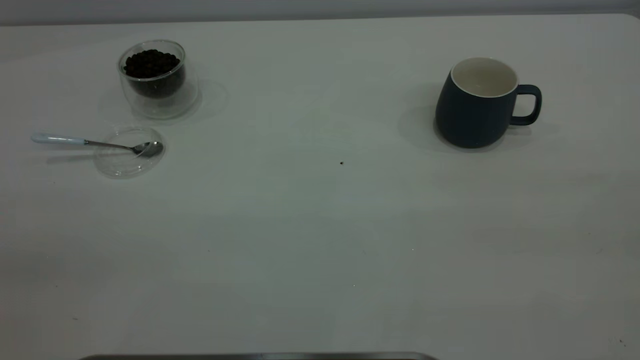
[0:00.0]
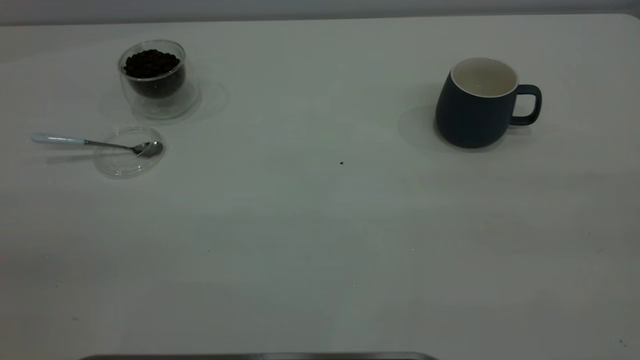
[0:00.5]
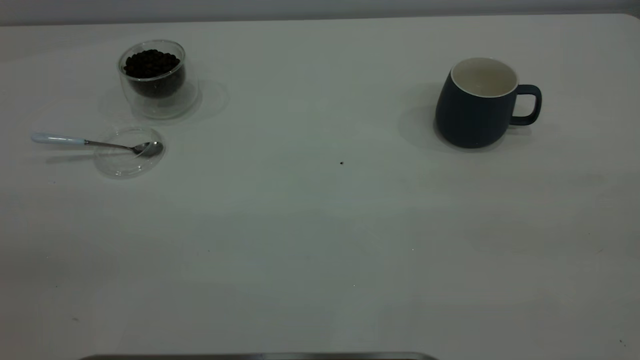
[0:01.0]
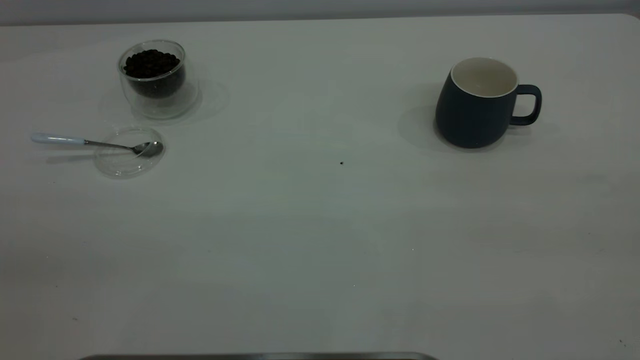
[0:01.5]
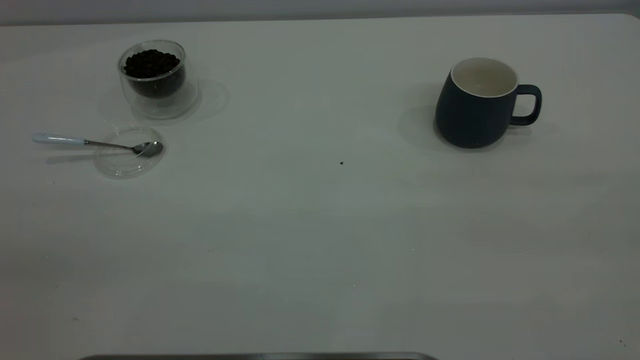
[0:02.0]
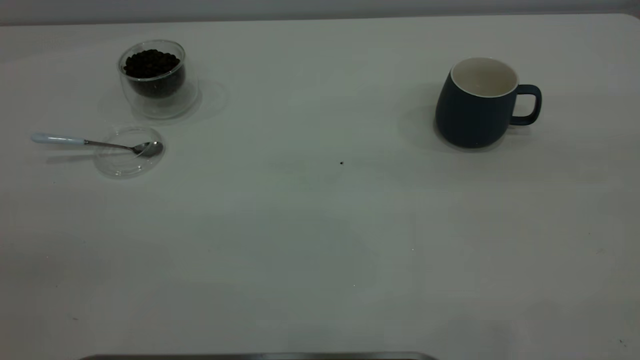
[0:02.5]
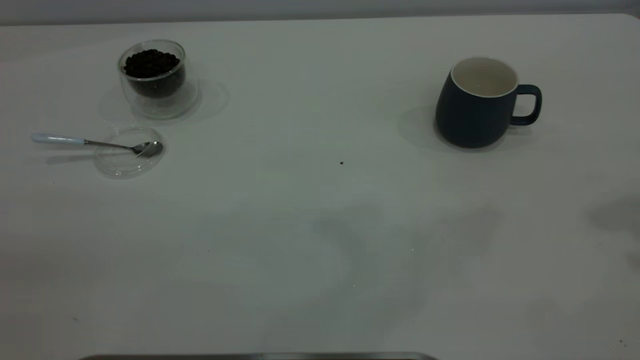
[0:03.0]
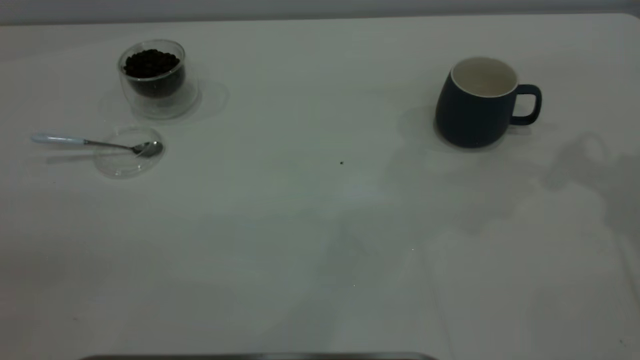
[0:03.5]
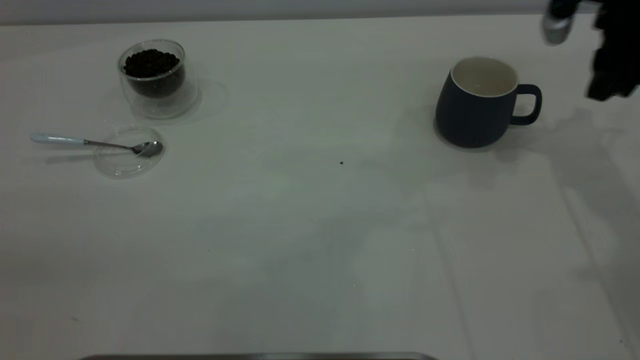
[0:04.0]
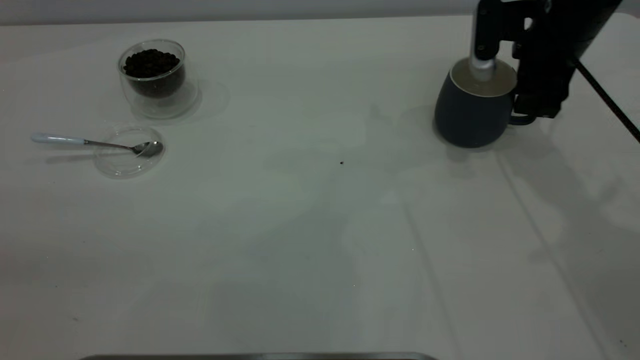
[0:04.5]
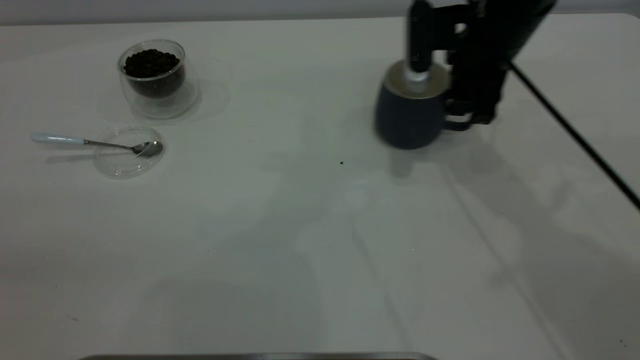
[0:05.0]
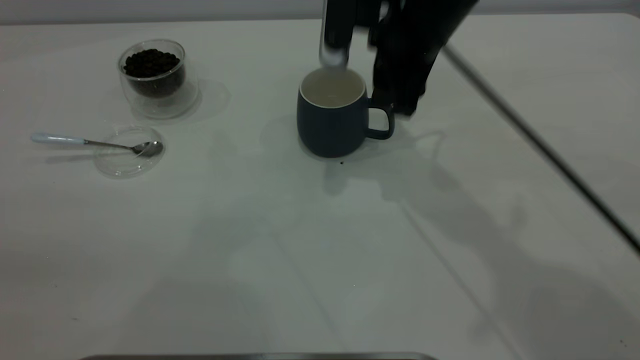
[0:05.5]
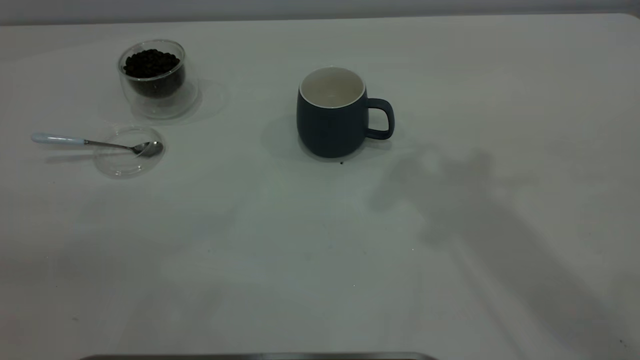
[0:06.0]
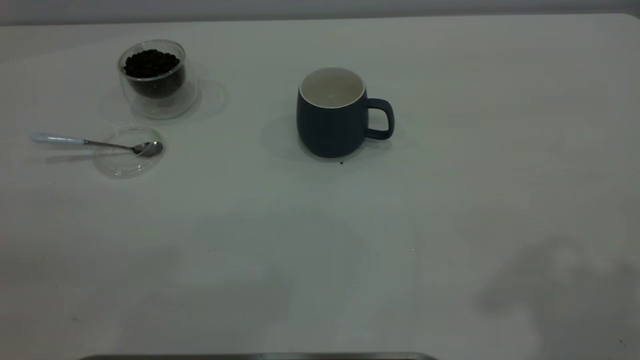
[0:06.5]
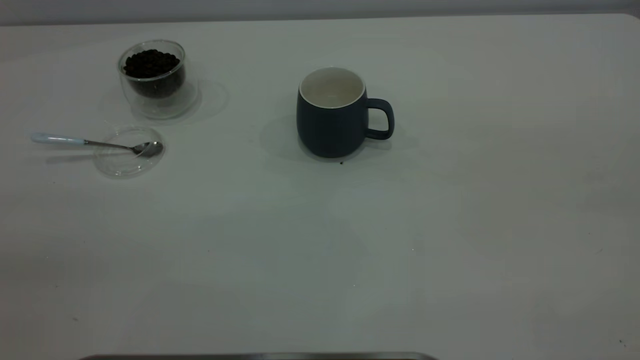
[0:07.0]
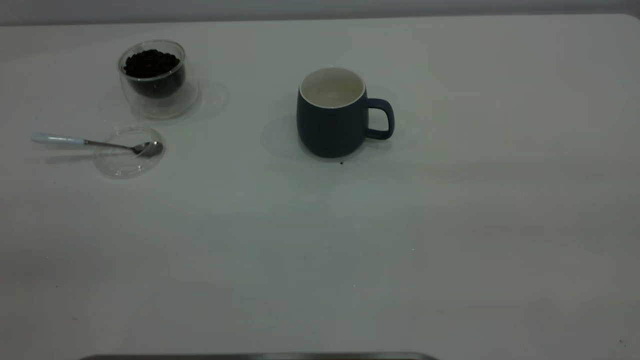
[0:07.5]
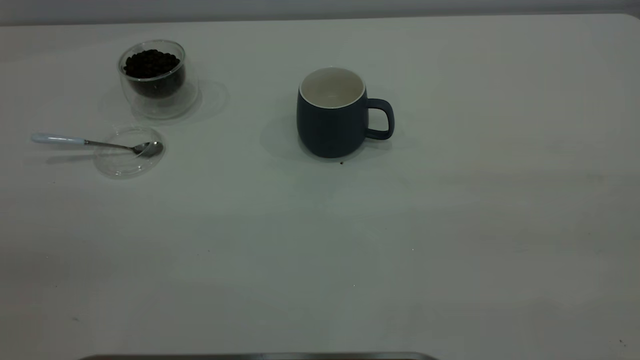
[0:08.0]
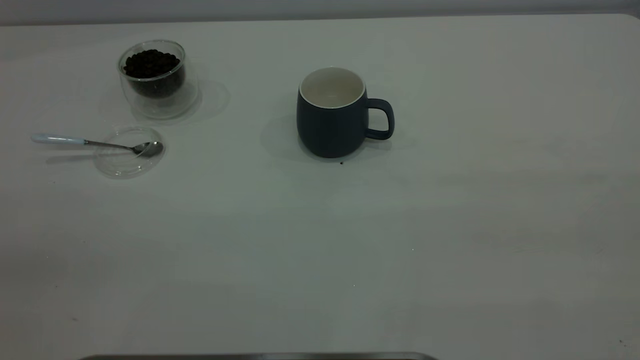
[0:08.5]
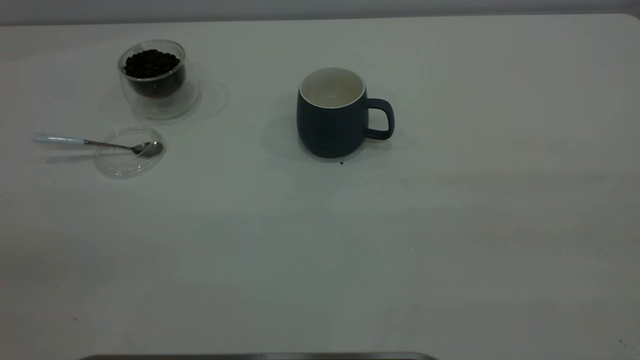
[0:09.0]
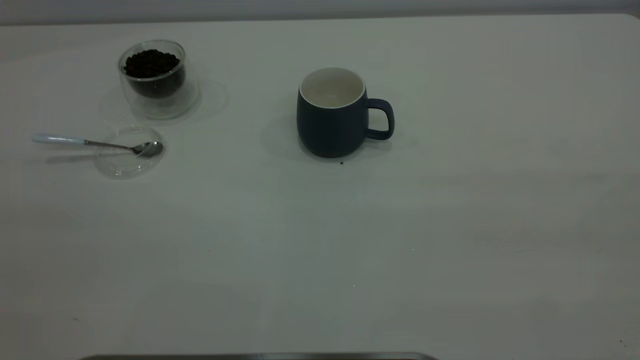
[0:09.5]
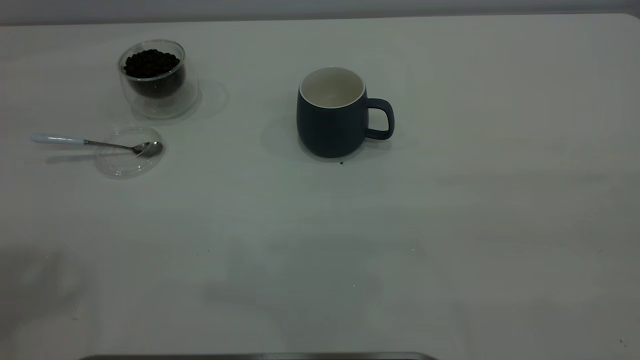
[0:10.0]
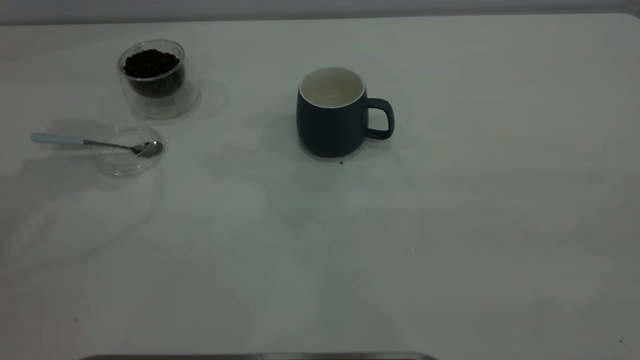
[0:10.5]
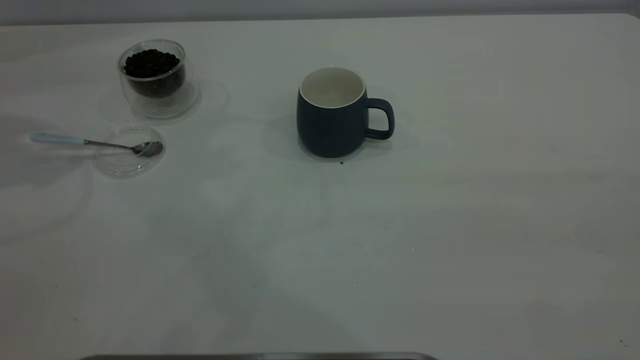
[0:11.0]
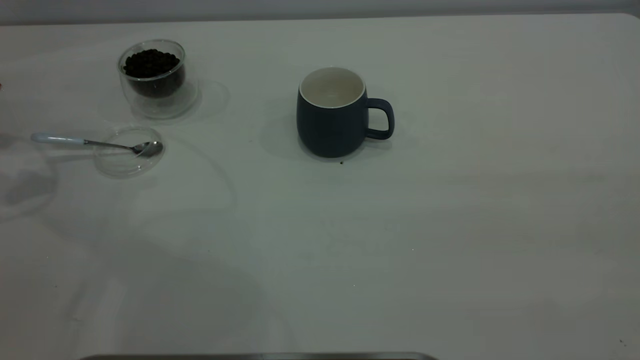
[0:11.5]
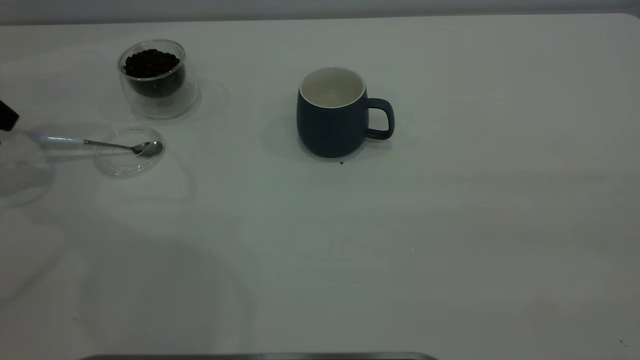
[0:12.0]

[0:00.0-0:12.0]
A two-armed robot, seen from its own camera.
Task of the whole recording: the right gripper place the grey cup in the center of the table, the left gripper take the blue spoon from the cup lid and scoop out the coffee beans from the coffee cup and put them into the grey cup, the left gripper put the spoon back into the cup lid.
Step, 0:00.0 to 0:05.5: Move the cup to the center of view.
0:00.0 to 0:02.0: Neither gripper changes place.
0:02.0 to 0:04.0: The right gripper shifts about 50 cm forward and downward.
0:04.0 to 0:06.0: The right gripper shifts some 30 cm upward, to the left and backward.
0:10.0 to 0:12.0: The left gripper shifts about 35 cm downward, forward and to the left.

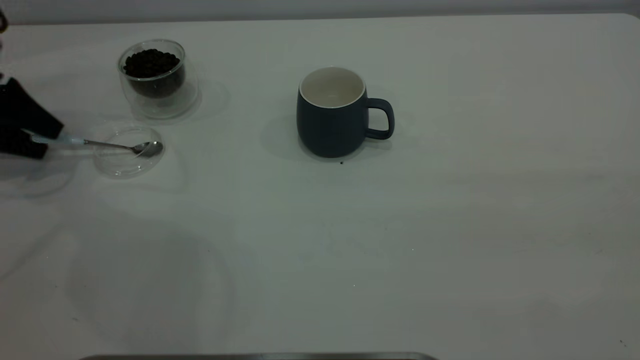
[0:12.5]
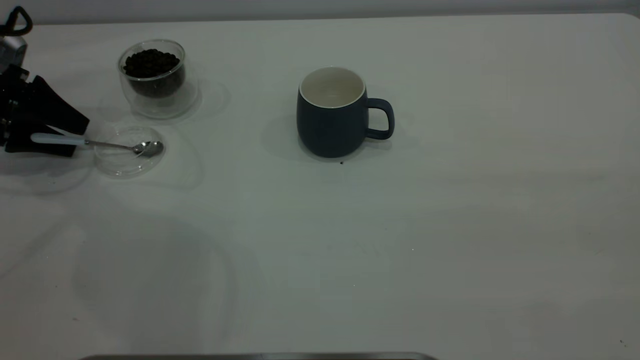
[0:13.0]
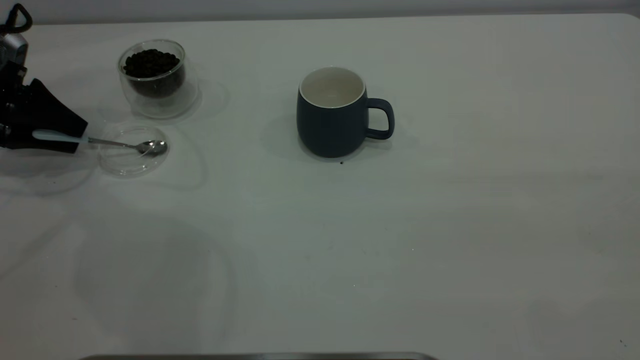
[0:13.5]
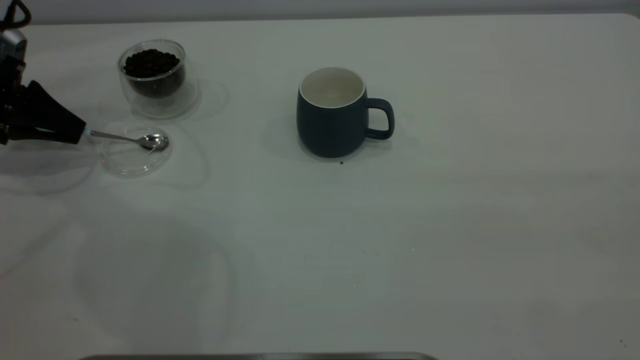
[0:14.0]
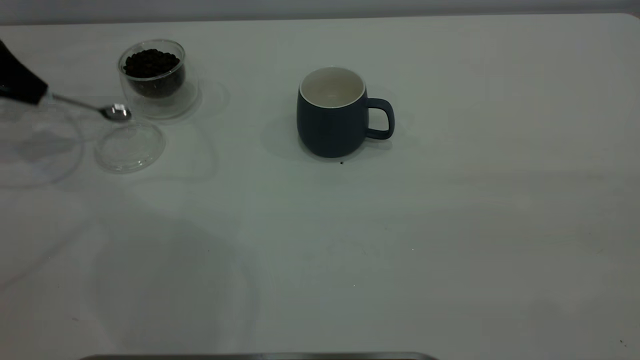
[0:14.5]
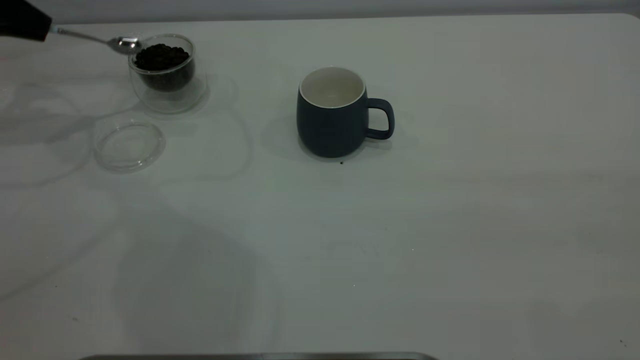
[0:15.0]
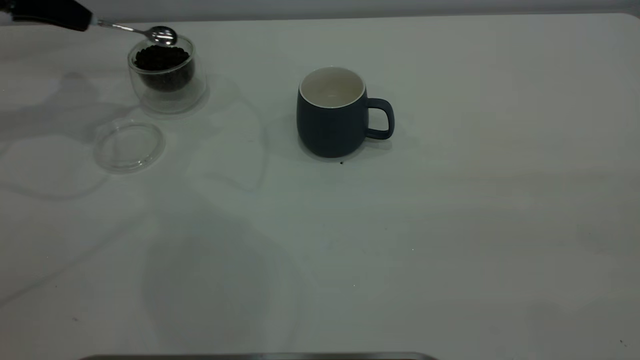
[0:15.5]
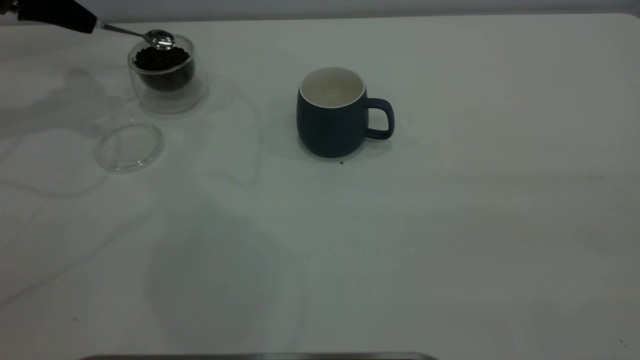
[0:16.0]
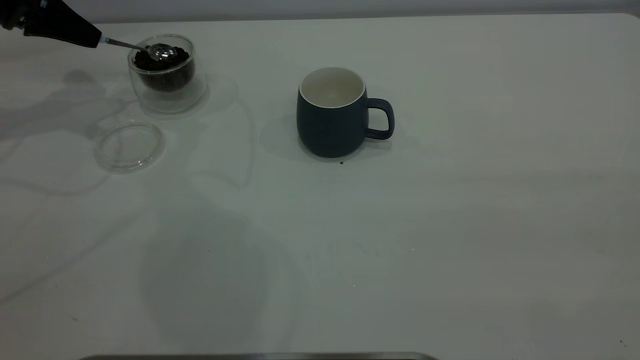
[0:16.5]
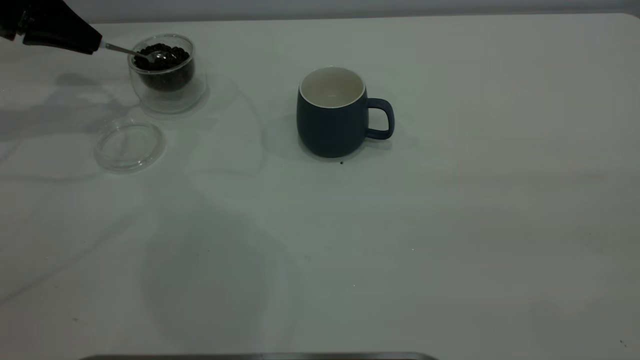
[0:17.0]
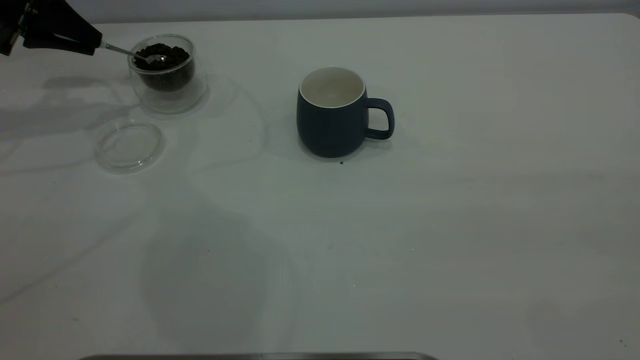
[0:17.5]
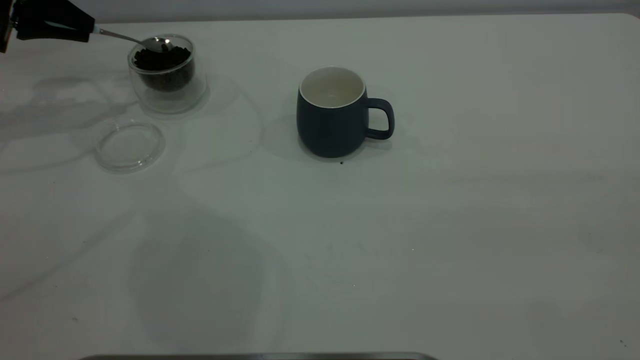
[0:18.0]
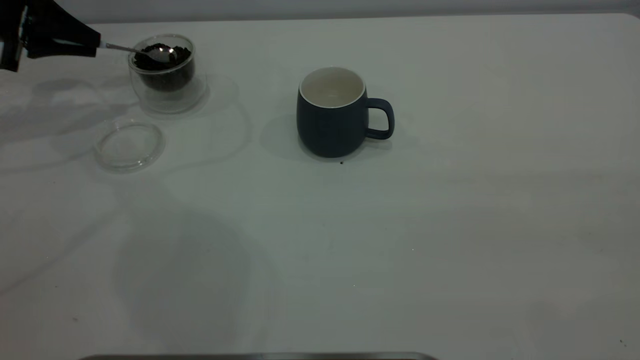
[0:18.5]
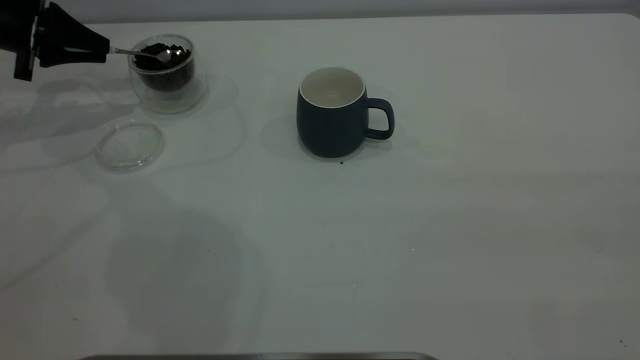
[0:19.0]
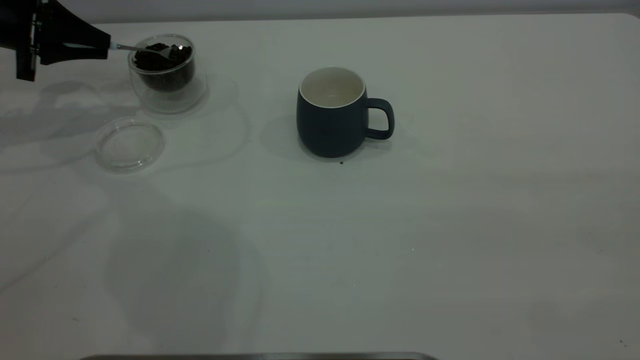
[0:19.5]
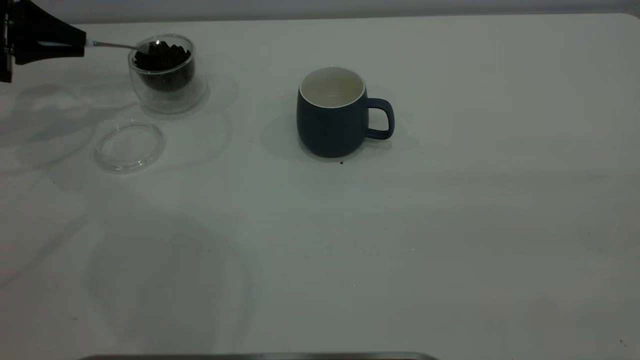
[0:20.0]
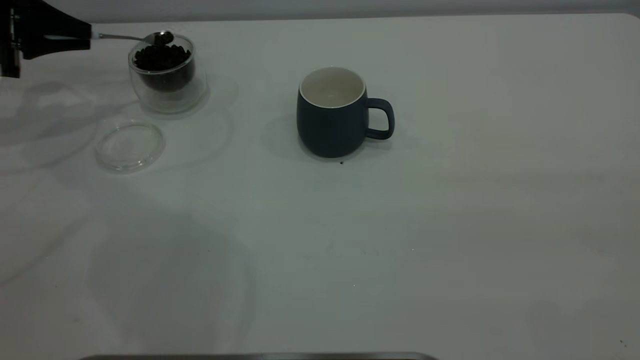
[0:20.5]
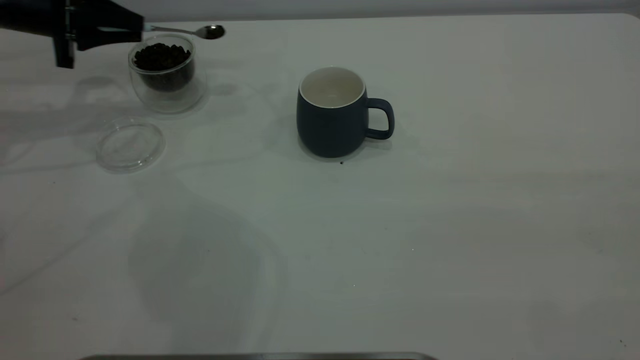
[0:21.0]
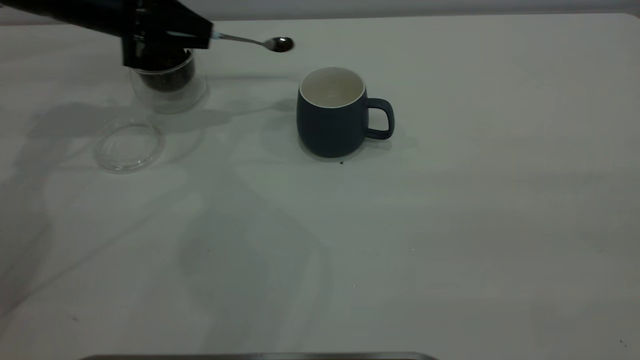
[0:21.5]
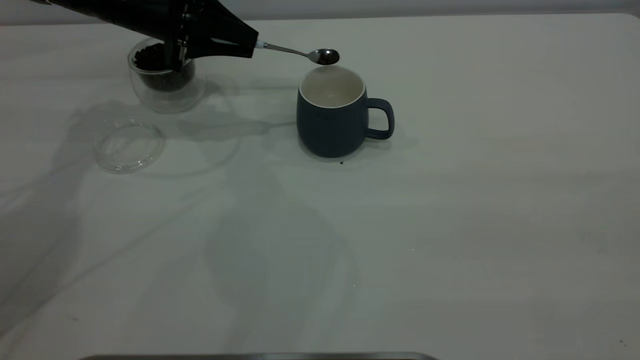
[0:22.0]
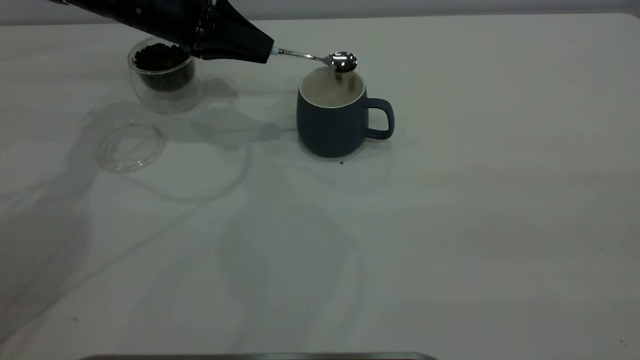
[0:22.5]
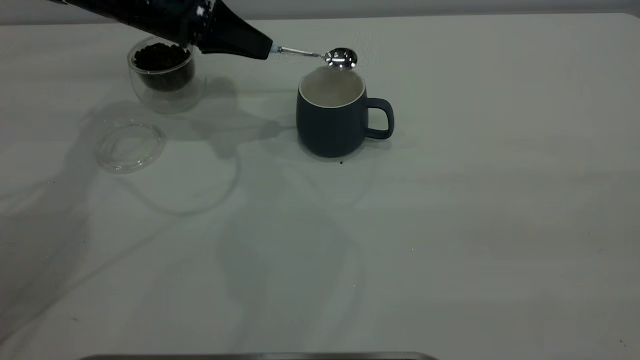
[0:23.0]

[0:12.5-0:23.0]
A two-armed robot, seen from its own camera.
Task of the whole recording: the right gripper place the grey cup in the center of the table, the left gripper take the blue spoon from the cup lid and scoop out the coffee beans from the coffee cup and put them into the grey cup, the left gripper put the spoon back into the cup lid.
Step, 0:12.5 to 0:14.5: Pick up the spoon.
0:12.5 to 0:14.5: The left gripper moves upward, about 5 cm, and closes up.
0:14.5 to 0:16.5: The left gripper heads to the right, covering some 5 cm.
0:19.0 to 0:21.0: The left gripper goes some 5 cm to the right.
0:21.0 to 0:23.0: The left gripper heads to the right, covering approximately 15 cm.
